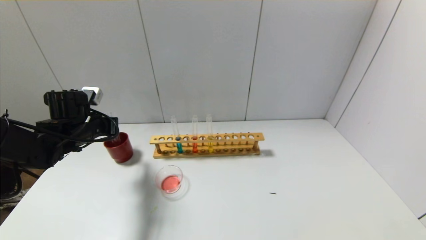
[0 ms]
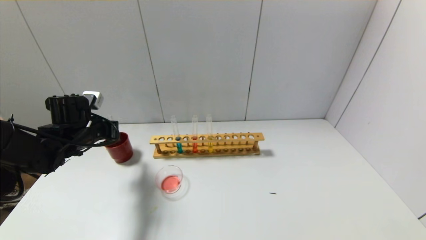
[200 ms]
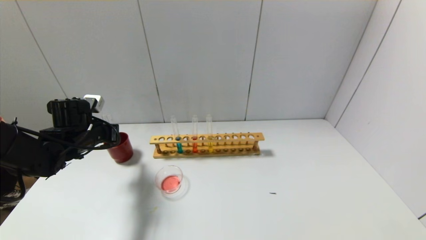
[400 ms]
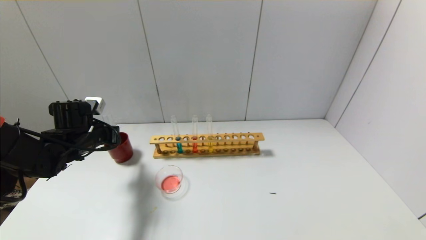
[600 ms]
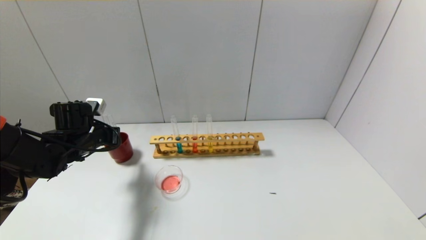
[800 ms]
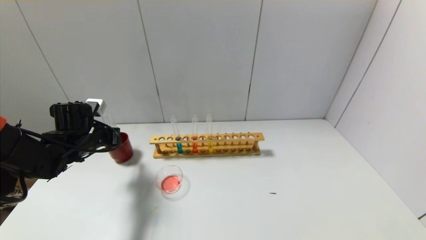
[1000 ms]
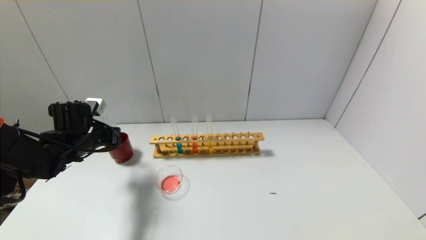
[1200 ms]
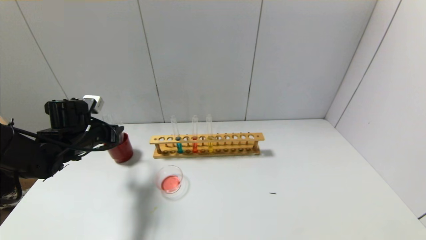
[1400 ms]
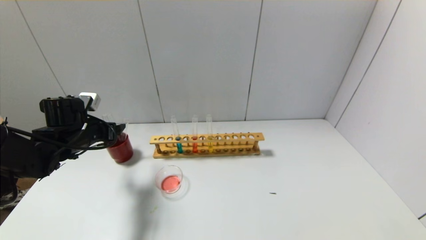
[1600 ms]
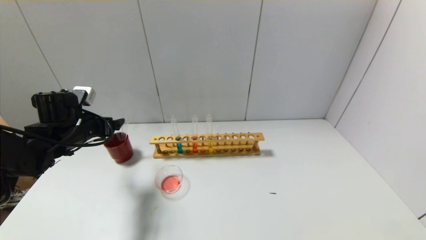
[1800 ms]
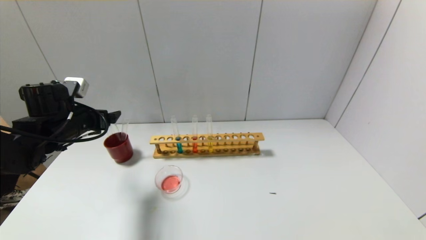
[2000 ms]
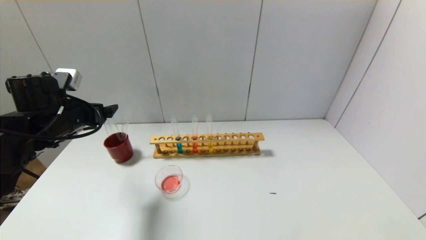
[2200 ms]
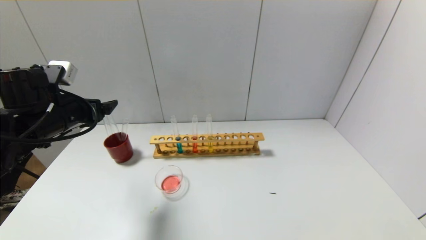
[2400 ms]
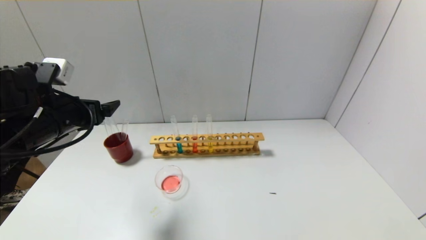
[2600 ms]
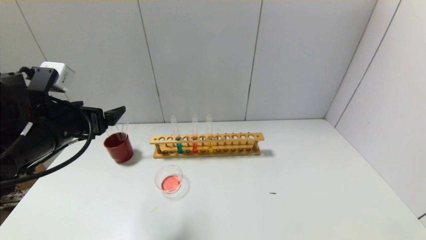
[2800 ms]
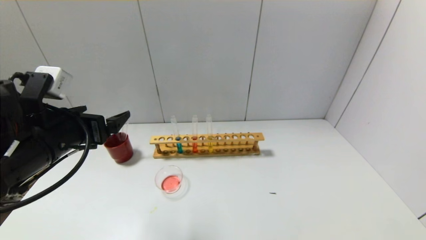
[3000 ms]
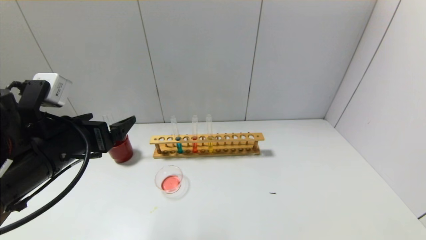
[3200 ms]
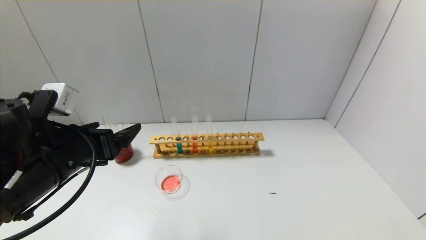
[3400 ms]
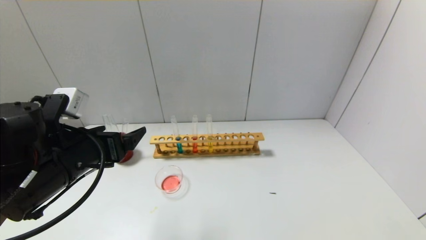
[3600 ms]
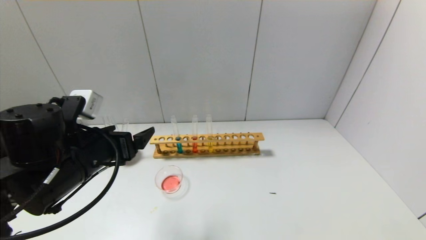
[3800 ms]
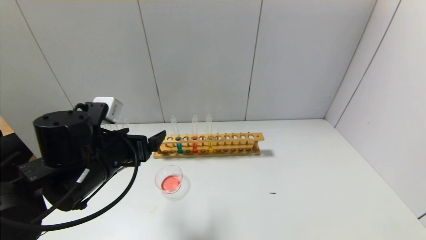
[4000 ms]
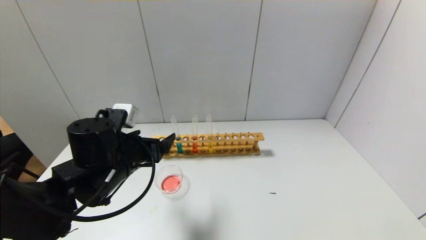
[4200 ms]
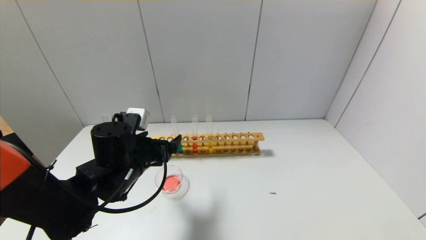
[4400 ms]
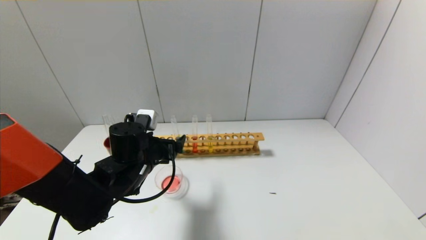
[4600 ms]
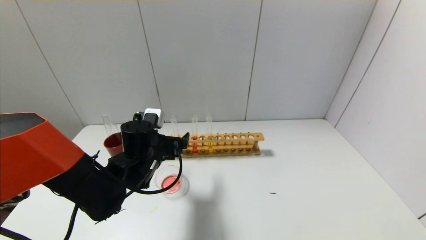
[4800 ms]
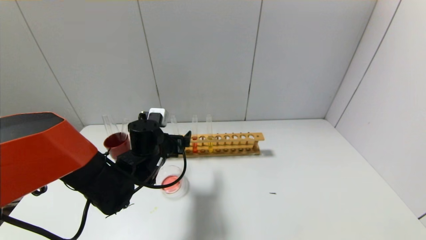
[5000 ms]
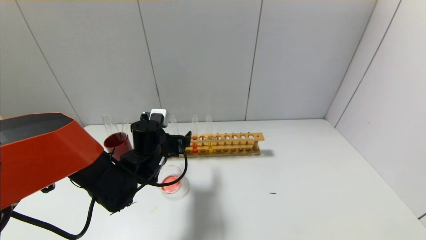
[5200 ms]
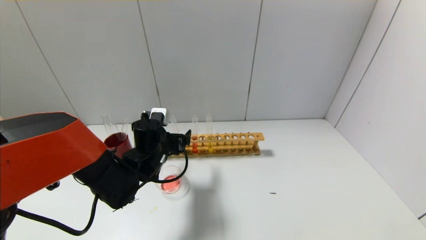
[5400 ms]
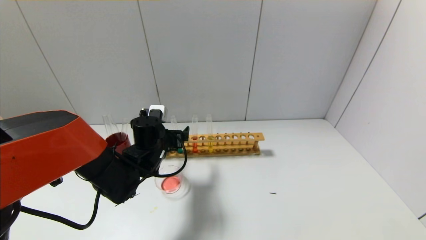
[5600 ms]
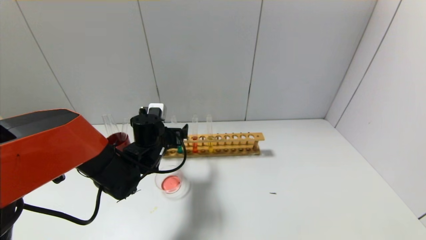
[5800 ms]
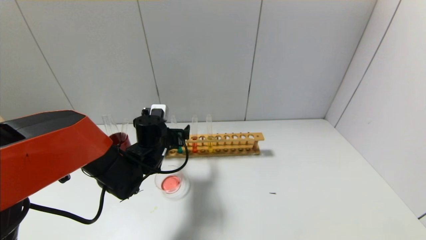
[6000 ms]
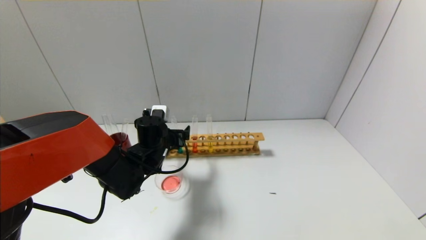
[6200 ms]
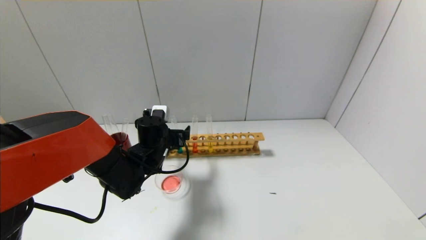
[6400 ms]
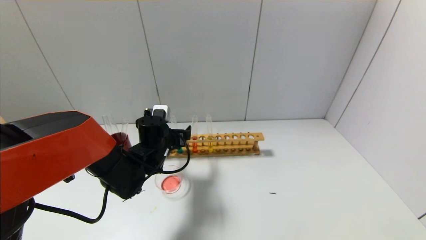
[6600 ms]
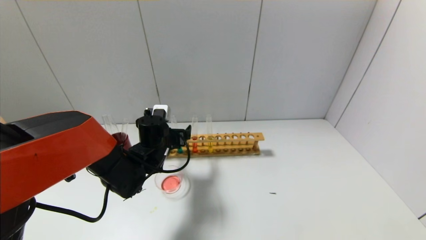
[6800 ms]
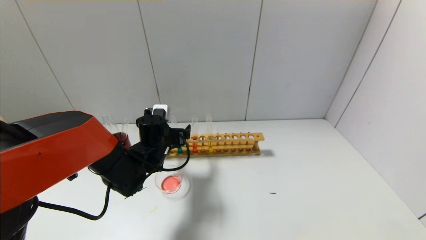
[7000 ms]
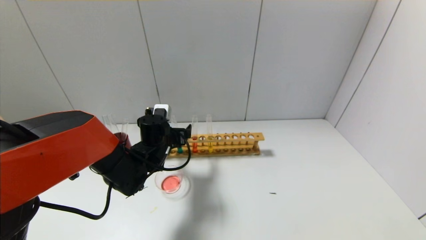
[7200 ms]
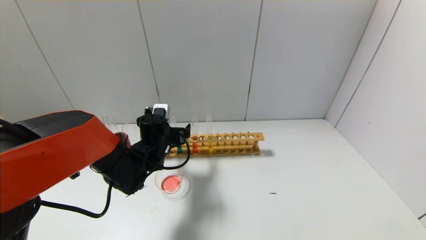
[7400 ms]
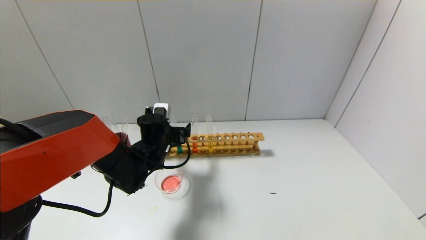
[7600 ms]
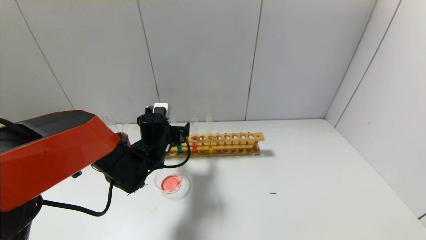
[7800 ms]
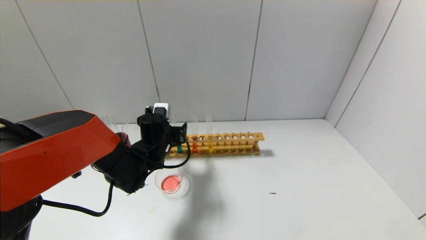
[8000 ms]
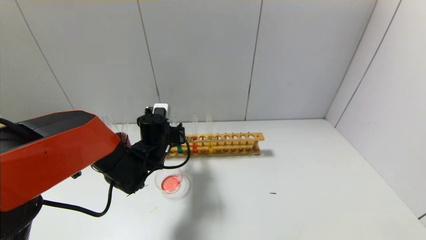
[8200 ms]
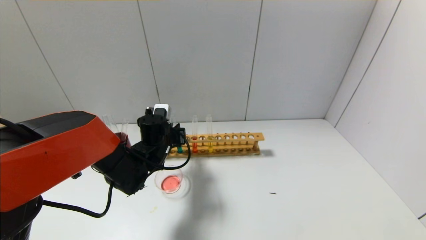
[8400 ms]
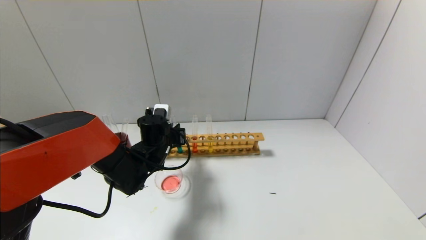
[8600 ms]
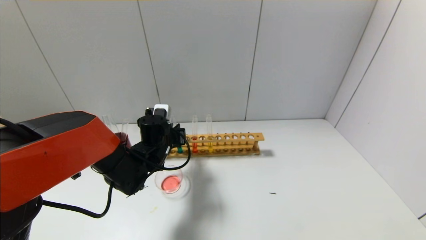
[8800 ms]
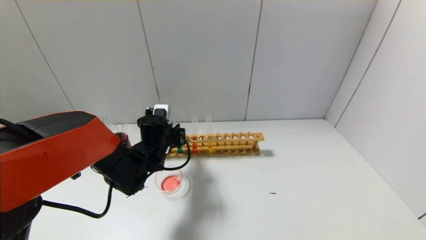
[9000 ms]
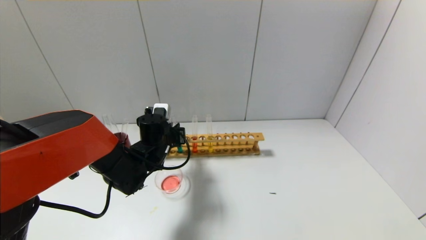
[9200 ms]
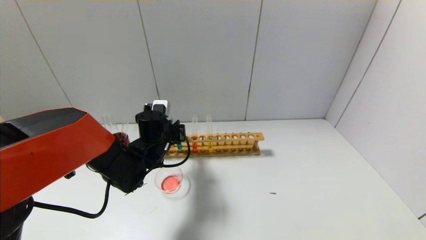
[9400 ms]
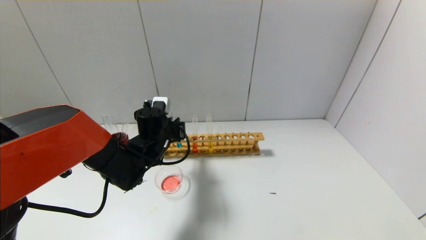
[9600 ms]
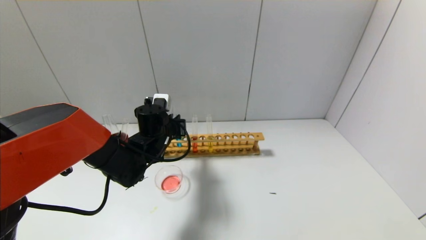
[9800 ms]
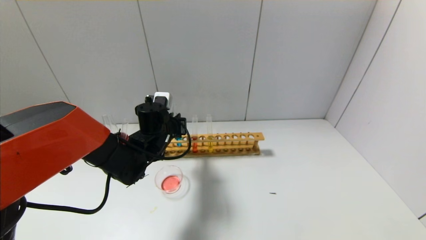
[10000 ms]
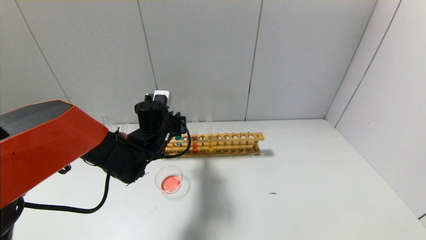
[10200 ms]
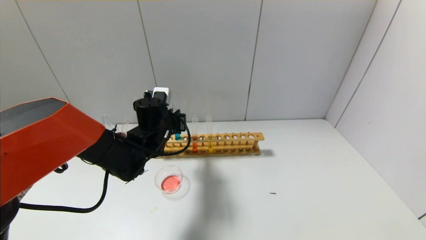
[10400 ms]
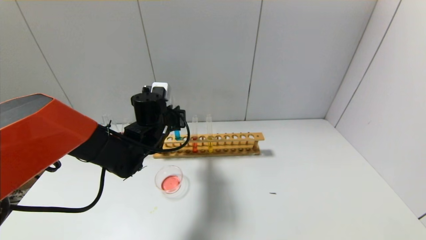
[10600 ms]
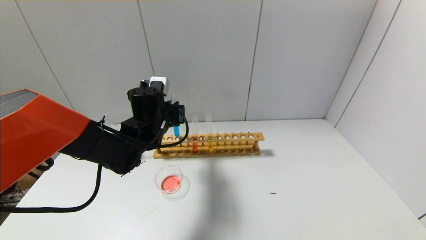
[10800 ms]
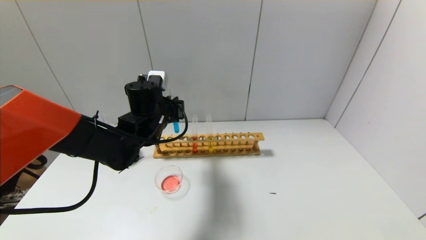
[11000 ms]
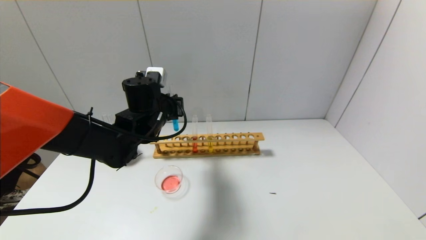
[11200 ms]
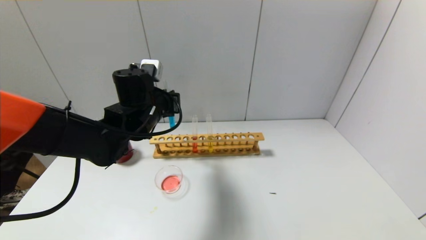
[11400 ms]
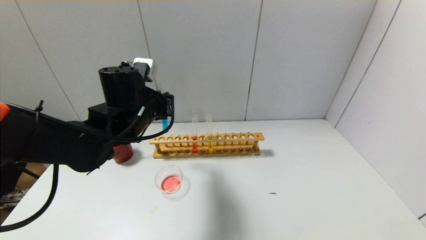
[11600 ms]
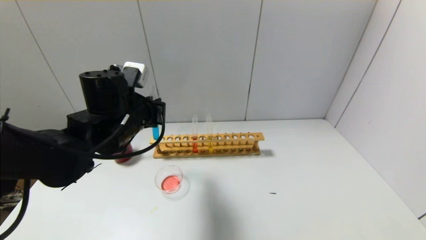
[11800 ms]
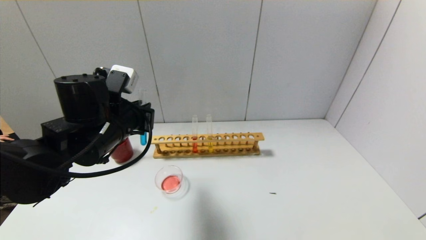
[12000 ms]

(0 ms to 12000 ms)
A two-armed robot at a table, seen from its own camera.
Step, 1600 ms - 8400 ms: Grasp the blue reagent with the left gripper.
0 ms - 1600 ms: The left gripper opens its fingers.
1600 ms - 3000 ms: The left gripper shifts some 15 cm backward, upward and to the right.
3000 ms - 4400 ms: The left gripper heads downward, to the right and forward, covering roughly 15 cm.
4400 ms - 6000 ms: The left gripper heads forward, covering approximately 10 cm.
6000 ms - 7600 ms: The grippers make only small movements.
7600 ms - 9000 ms: The left gripper closes up.
9000 ms - 10400 ms: There are only small adjustments of the grippers.
10400 ms - 12000 ms: The left gripper travels backward, upward and to the left by approximately 15 cm.

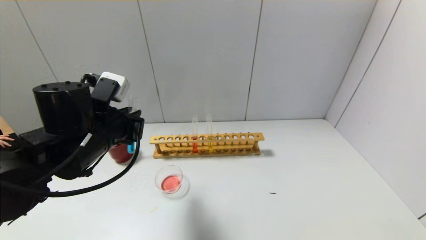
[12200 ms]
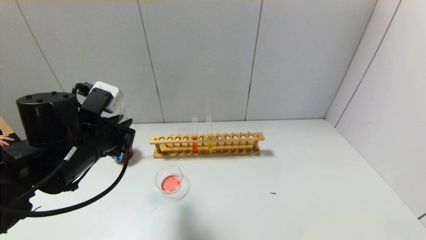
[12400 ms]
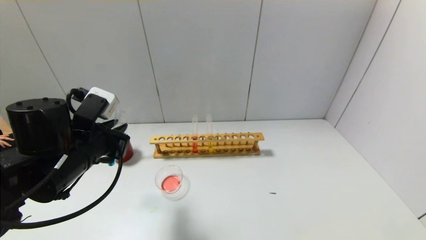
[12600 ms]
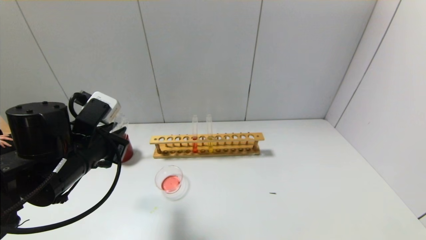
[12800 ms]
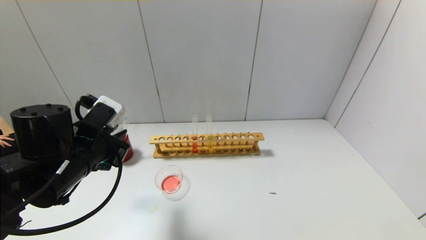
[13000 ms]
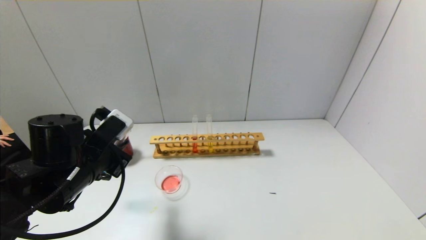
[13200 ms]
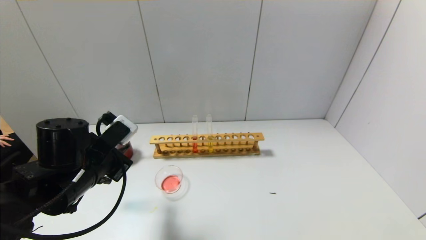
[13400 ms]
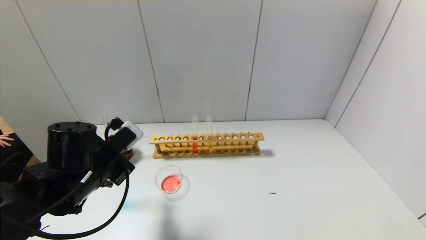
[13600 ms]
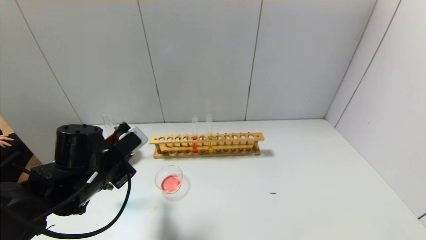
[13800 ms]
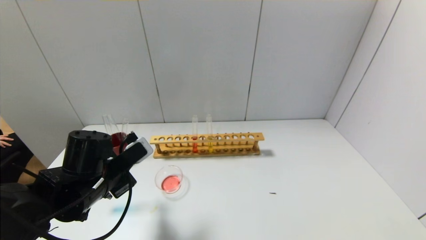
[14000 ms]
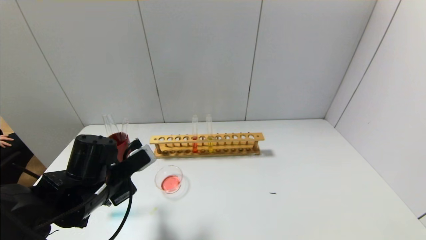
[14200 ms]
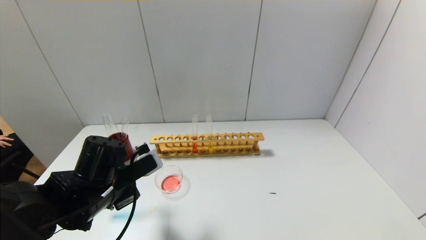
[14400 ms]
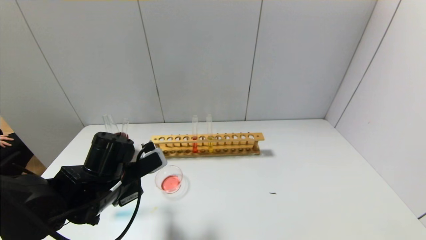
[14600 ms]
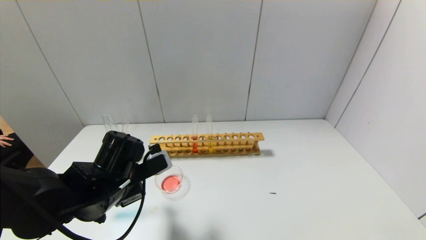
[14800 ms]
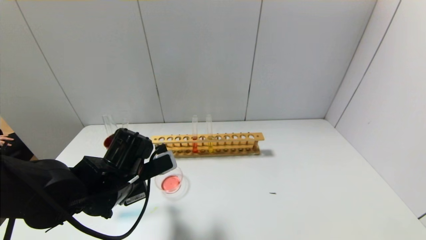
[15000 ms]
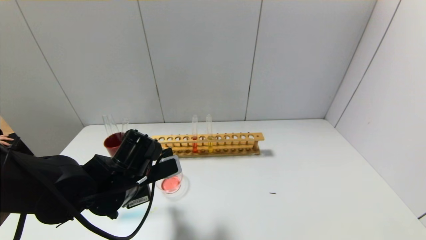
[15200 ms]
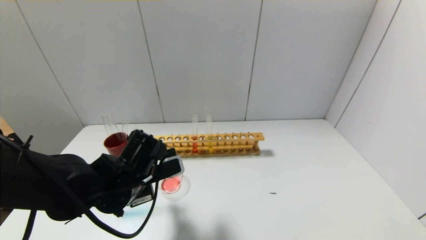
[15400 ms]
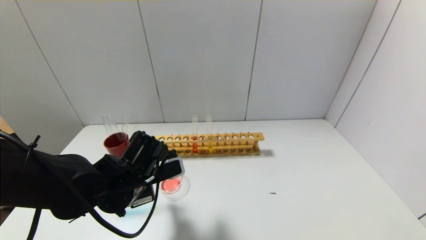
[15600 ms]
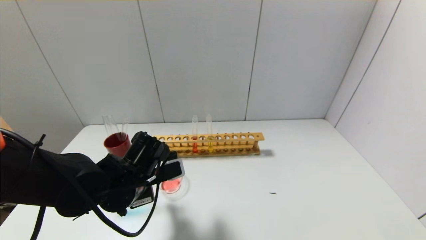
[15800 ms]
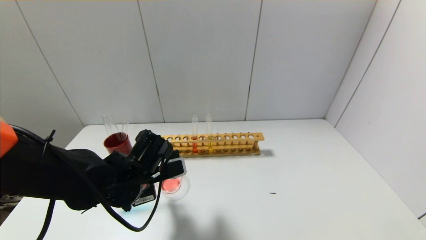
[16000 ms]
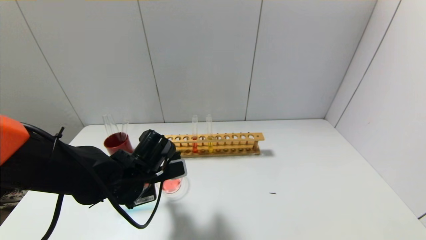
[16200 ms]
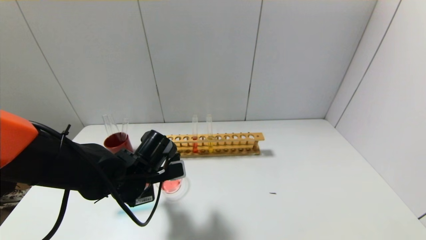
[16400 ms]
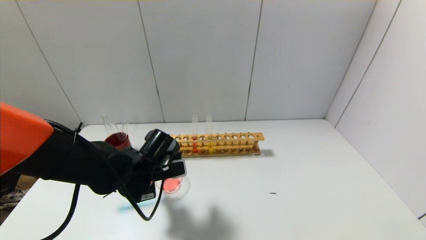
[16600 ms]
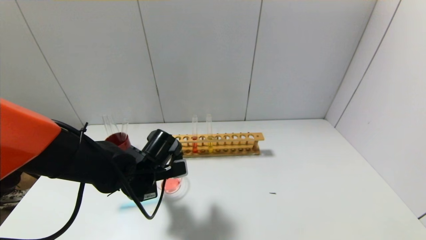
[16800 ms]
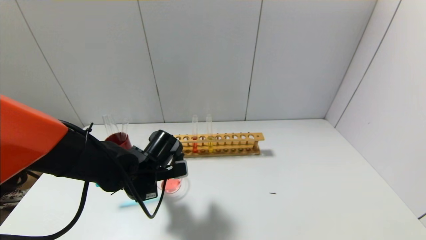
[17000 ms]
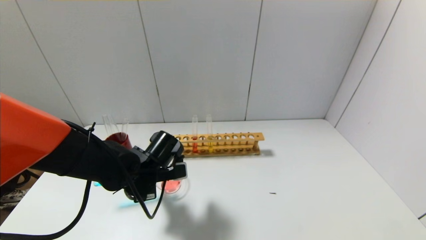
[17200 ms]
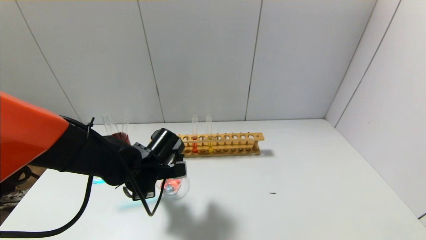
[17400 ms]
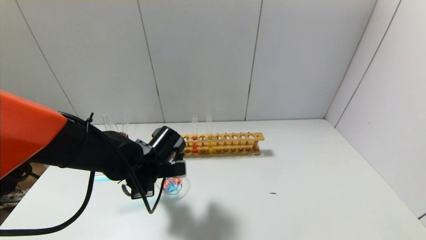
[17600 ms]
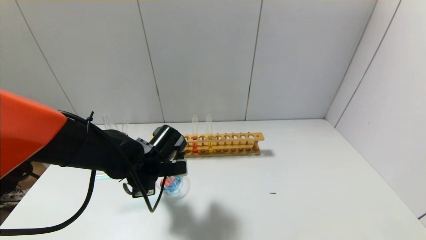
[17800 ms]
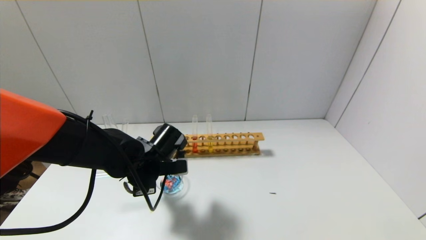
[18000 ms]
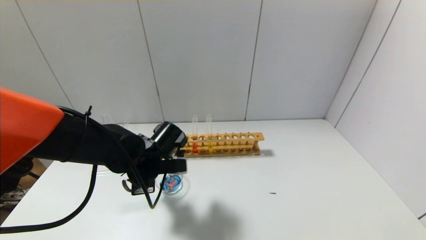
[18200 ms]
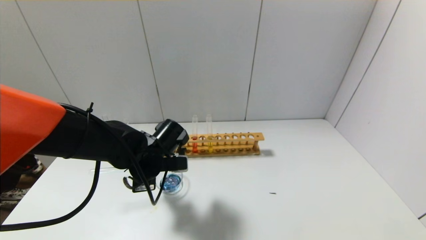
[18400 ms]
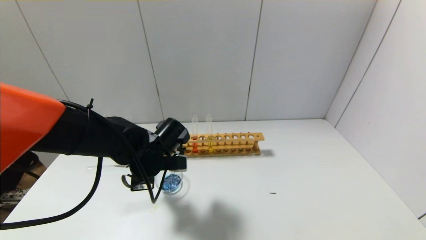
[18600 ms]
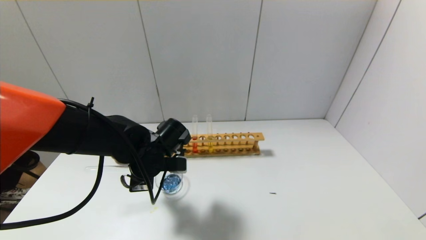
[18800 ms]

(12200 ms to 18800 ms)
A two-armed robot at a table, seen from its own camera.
12200 ms - 13800 ms: The left gripper heads downward, covering some 5 cm.
13800 ms - 15400 ms: The left gripper moves to the right, some 5 cm.
15400 ms - 17200 ms: There are only small adjustments of the grippers.
17200 ms - 18800 ms: There are only small adjustments of the grippers.
